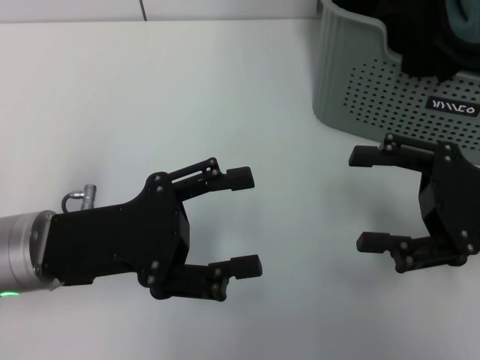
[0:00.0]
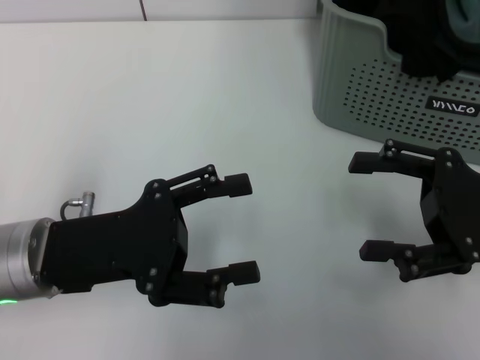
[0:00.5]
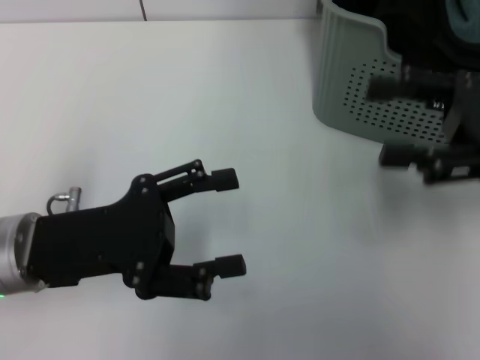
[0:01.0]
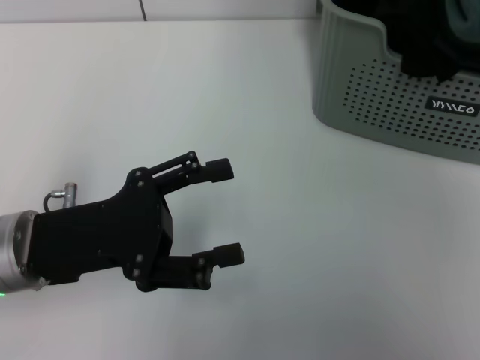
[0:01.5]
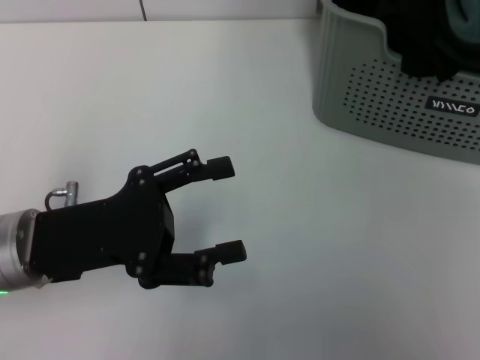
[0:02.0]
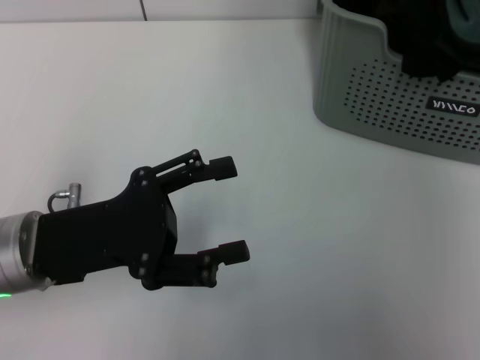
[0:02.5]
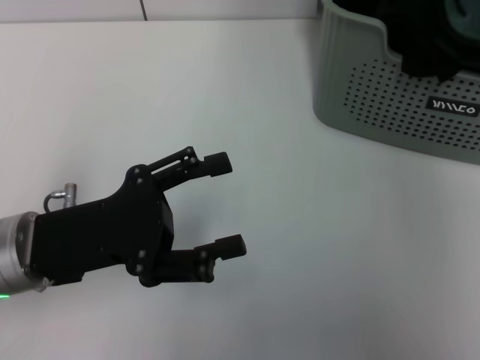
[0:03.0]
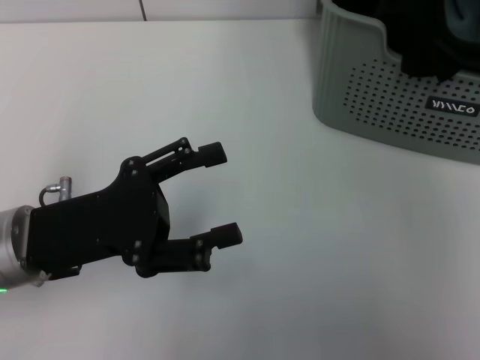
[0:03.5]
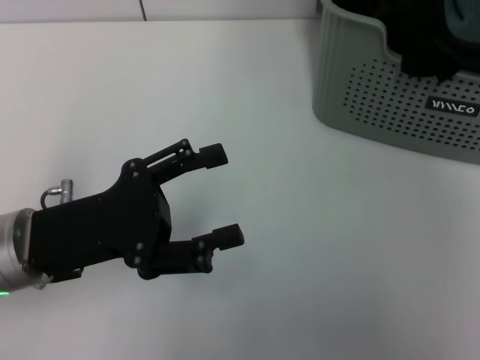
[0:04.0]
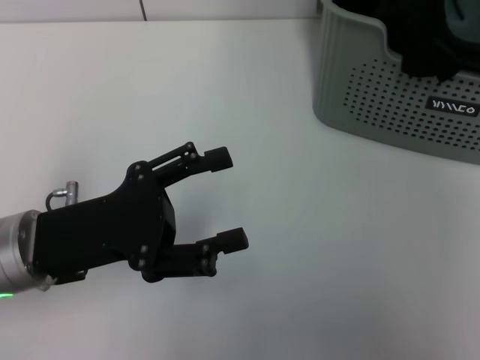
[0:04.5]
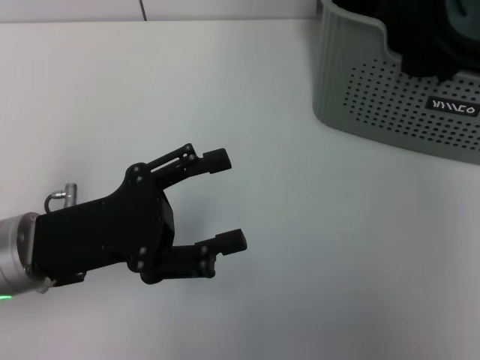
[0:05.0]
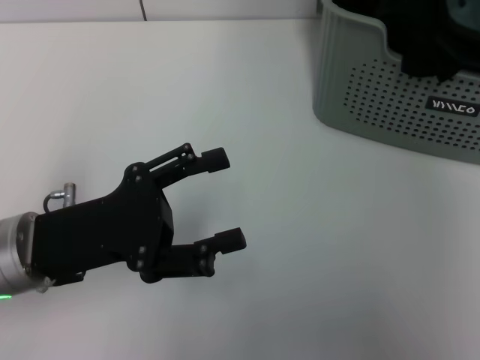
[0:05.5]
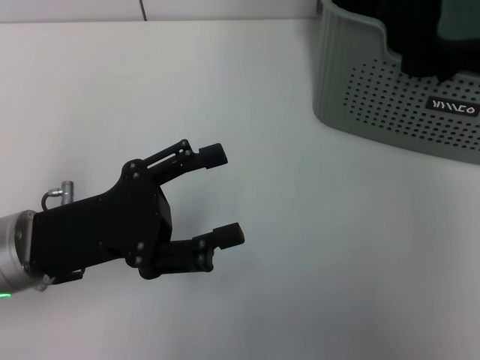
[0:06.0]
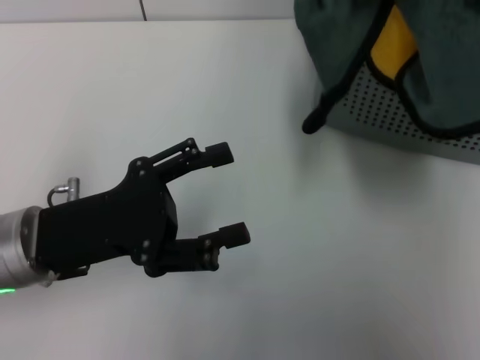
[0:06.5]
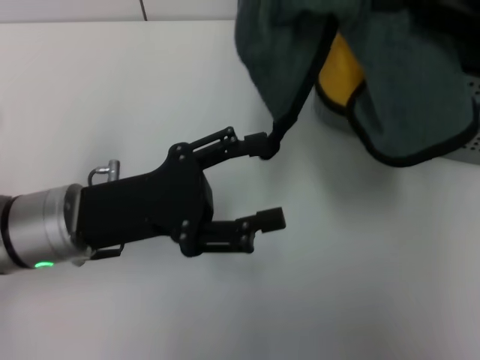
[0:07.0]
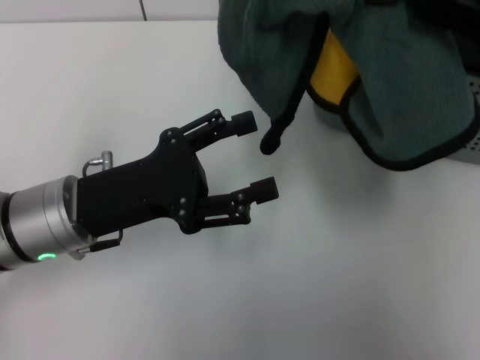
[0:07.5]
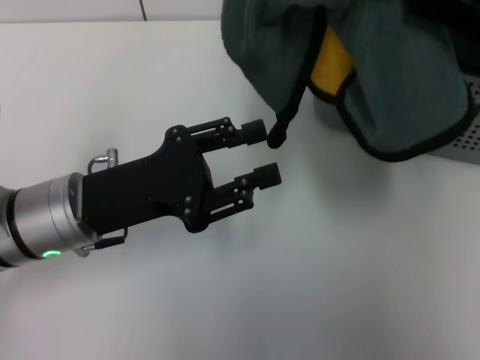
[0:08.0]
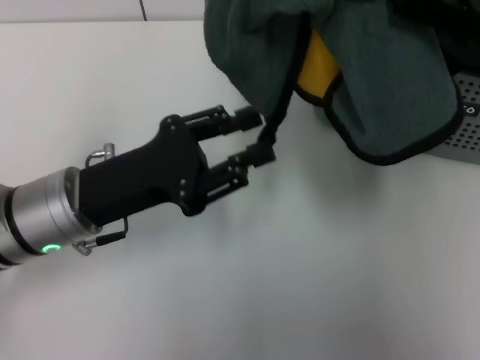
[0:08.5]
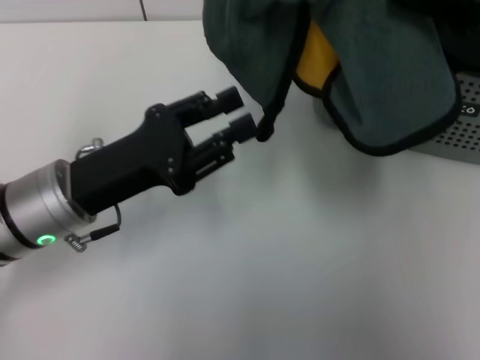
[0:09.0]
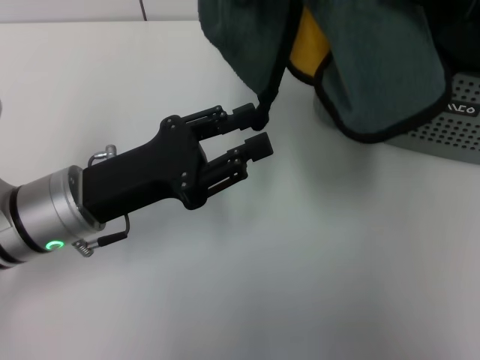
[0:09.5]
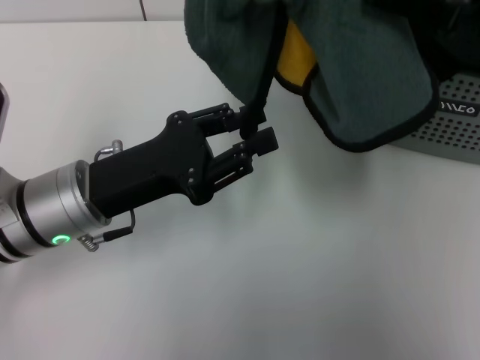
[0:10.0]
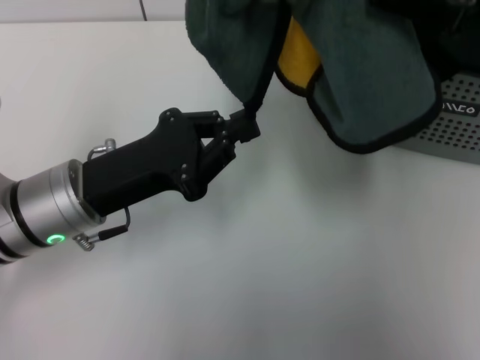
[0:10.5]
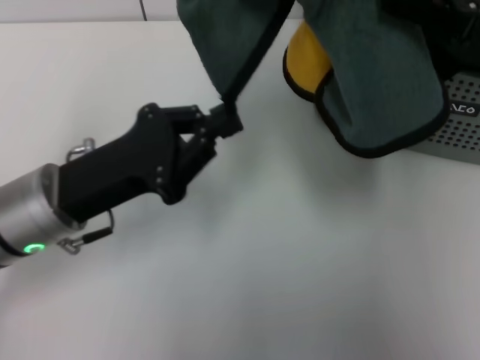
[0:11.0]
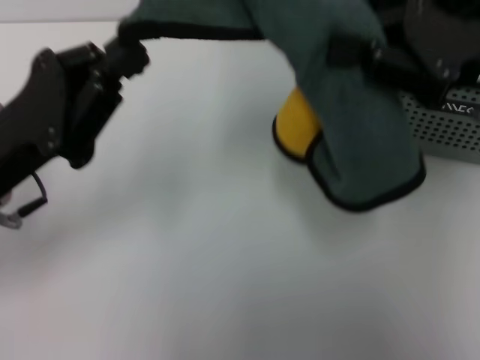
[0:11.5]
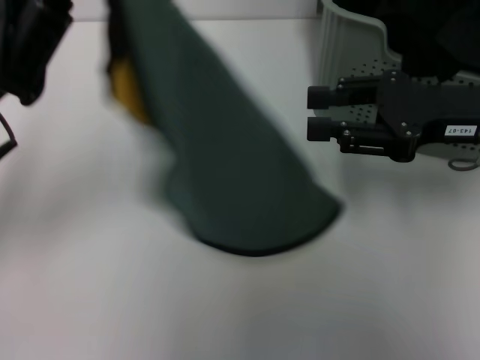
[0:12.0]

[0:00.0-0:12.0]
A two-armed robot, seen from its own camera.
Task of the whole recording: pick up the towel from the storage box and lay it flat on the table.
Step, 0:00.0 to 0:05.5: Pick up a towel with the right gripper.
Step, 0:06.0 to 0:10.5: Spread the towel flat with the right gripper.
0:00.0 to 0:02.0: The right gripper goes roughly 20 cm upward and to the right.
0:02.0 to 0:04.0: The right gripper moves to the left, about 5 cm, and closes up.
0:06.0 to 0:08.0: The right gripper goes roughly 5 cm to the left.
0:08.0 to 0:10.0: The left gripper closes.
0:10.0 to 0:12.0: The right gripper shifts approximately 10 cm downward, while the left gripper heads upward and to the left, covering approximately 10 cm, and closes up.

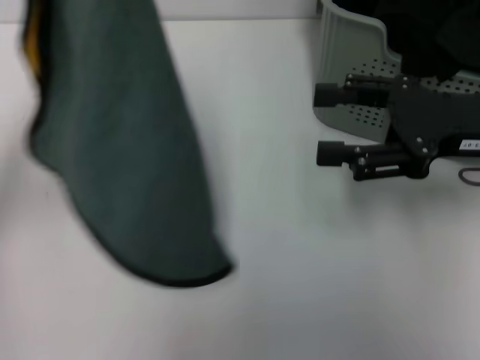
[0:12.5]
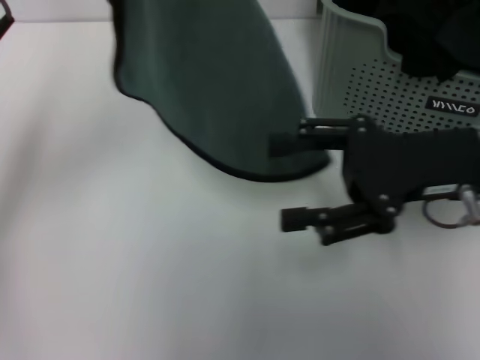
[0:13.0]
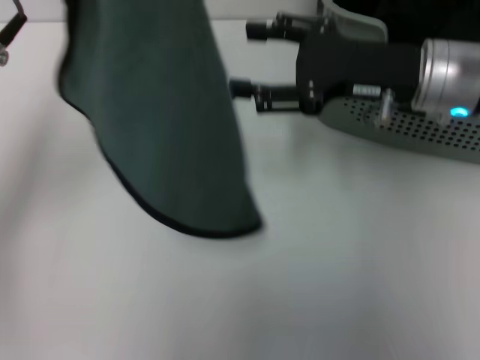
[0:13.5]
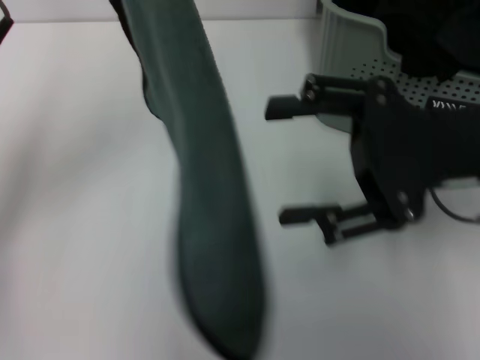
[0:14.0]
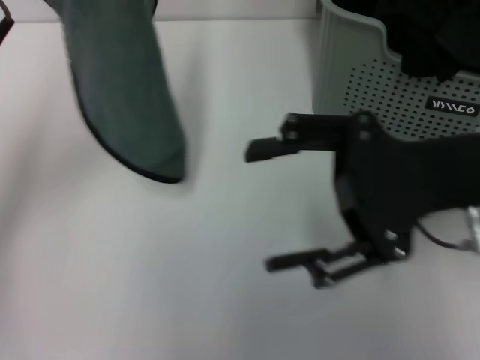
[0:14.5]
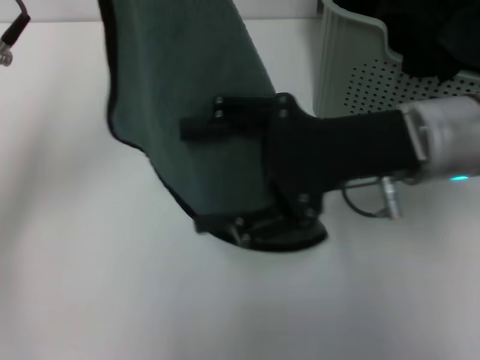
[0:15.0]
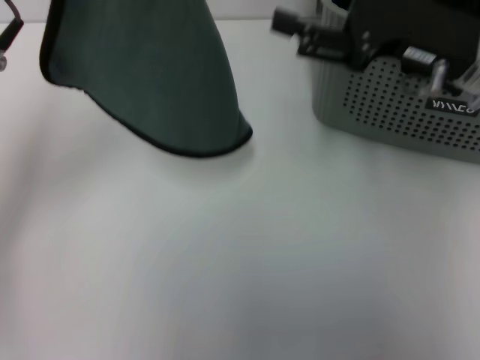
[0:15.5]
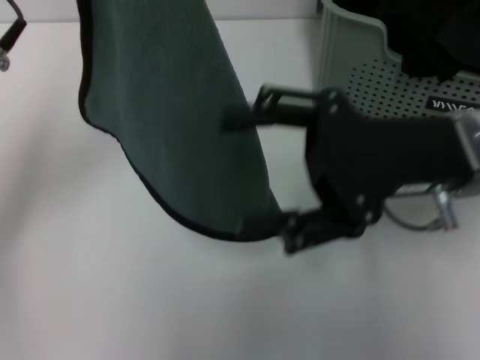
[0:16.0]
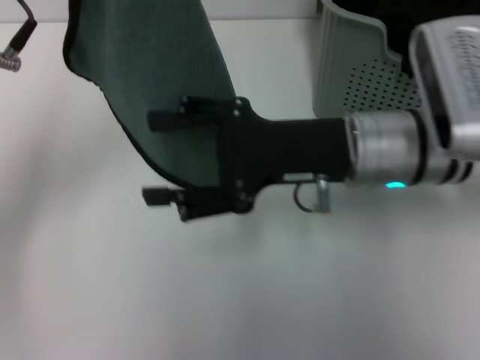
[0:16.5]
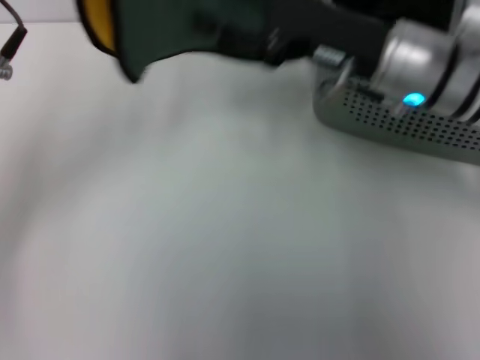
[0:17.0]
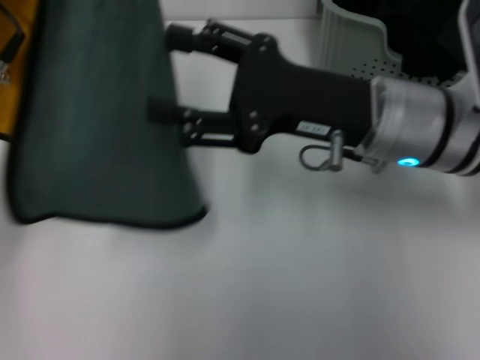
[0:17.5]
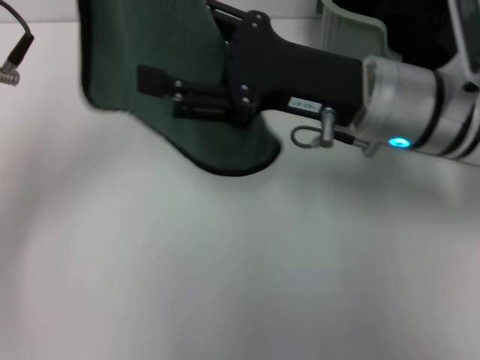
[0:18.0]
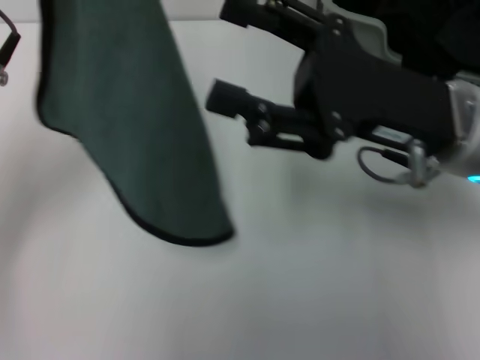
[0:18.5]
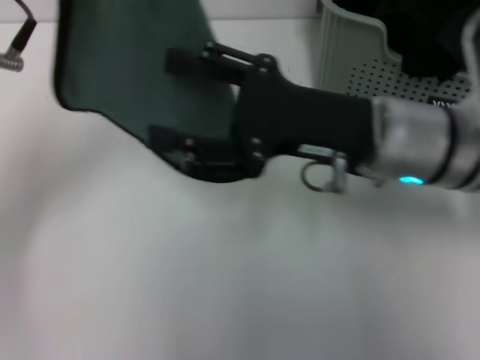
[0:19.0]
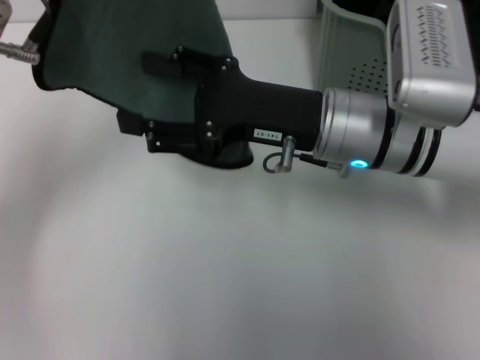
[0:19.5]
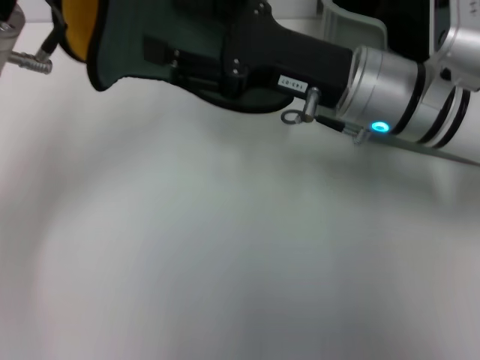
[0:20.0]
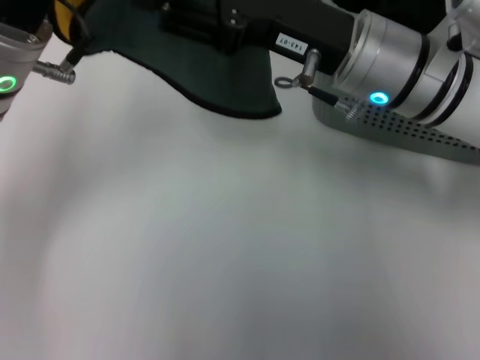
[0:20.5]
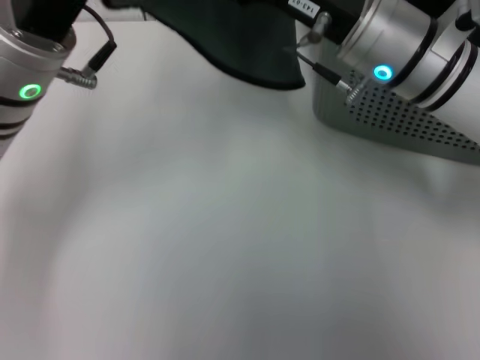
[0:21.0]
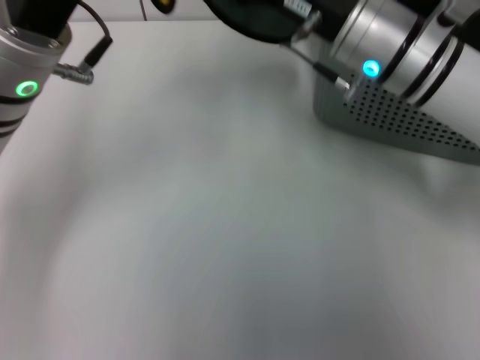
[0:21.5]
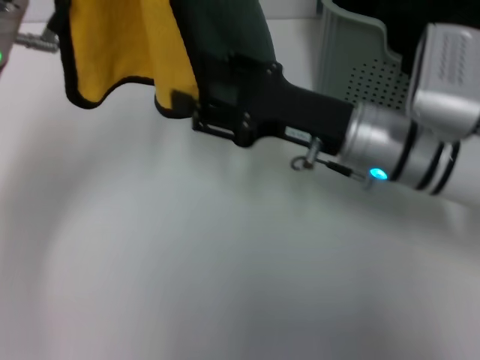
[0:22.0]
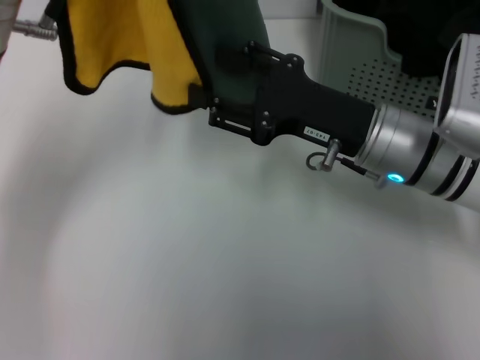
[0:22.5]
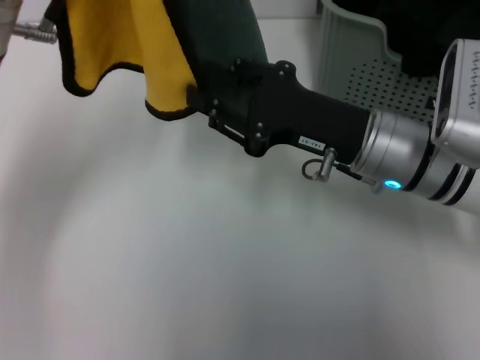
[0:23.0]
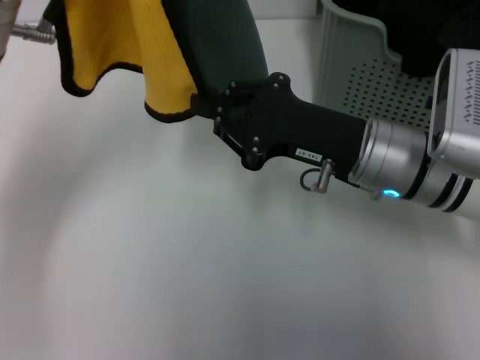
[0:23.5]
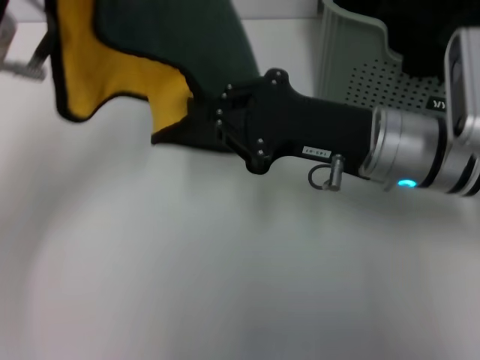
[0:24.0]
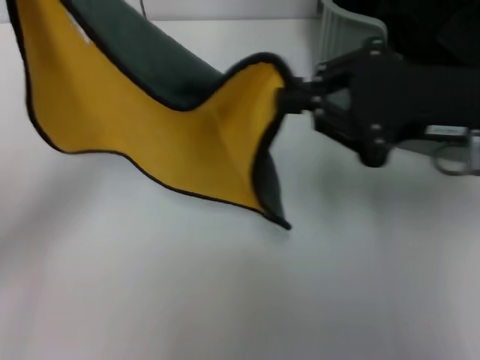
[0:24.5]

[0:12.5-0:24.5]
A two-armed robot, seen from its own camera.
Task of the whole recording: pick up the towel from the storage box and lay it flat on the table.
0:12.5 to 0:14.5: The right gripper travels to the left by roughly 5 cm.
0:14.5 to 0:16.5: The right gripper goes left and right, some 10 cm each way, reversing 2 times.
0:16.5 to 0:18.5: The right gripper ends up roughly 5 cm from where it was.
0:18.5 to 0:20.5: The right gripper travels forward and to the left by some 10 cm.
0:20.5 to 0:22.5: The right gripper shifts approximately 5 cm downward.
0:22.5 to 0:24.5: The left gripper goes approximately 10 cm backward, to the left and downward. The right gripper shifts approximately 10 cm upward and to the right, and closes up.

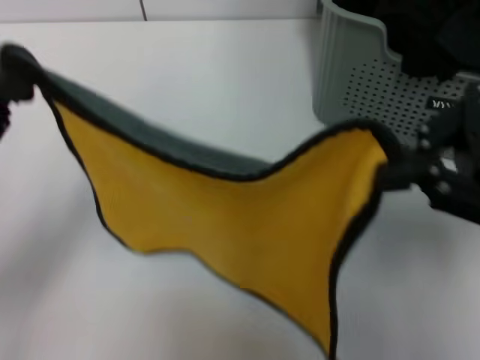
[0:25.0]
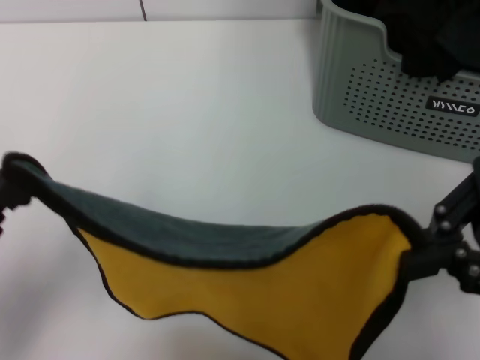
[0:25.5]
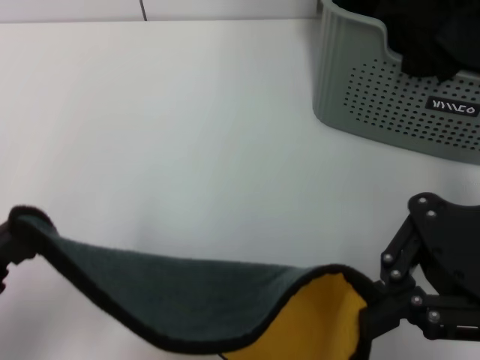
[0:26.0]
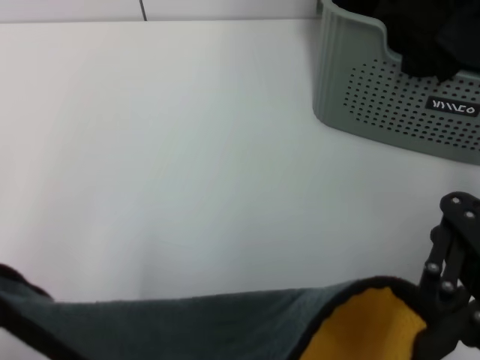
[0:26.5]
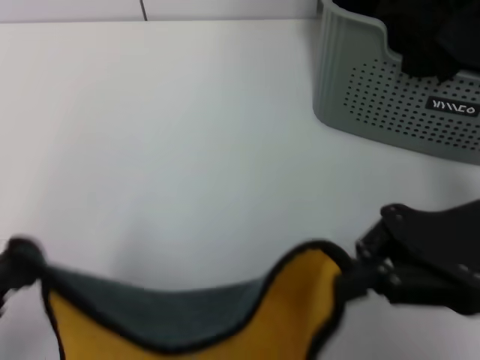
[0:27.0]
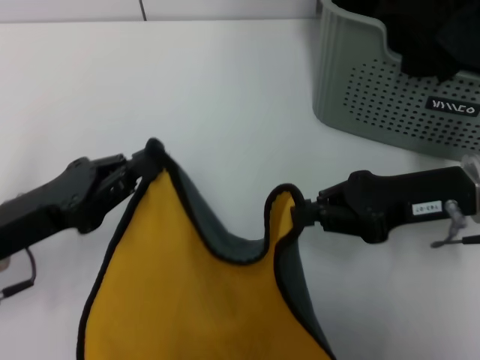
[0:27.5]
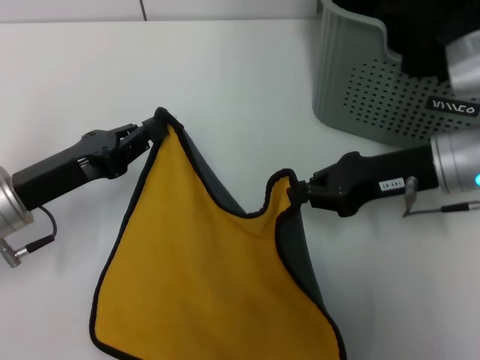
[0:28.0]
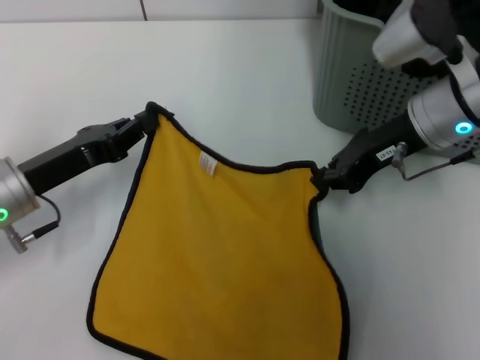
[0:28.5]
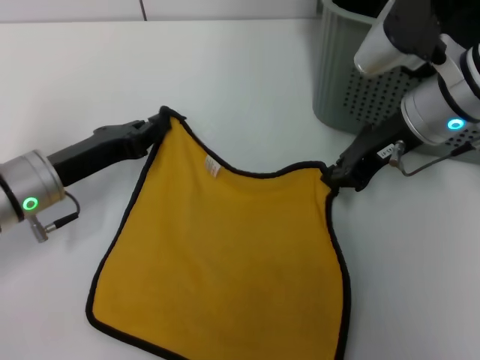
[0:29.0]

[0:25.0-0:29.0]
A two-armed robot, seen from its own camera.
Task of the whole recording: pick up the towel from the storage box and lay it flat on the table.
0:25.0 to 0:27.0: The right gripper goes about 10 cm downward; the left gripper travels backward by roughly 10 cm.
0:27.0 to 0:29.0: The left gripper heads forward, covering some 20 cm. Meanwhile the right gripper heads forward and to the left, covering approximately 15 cm.
